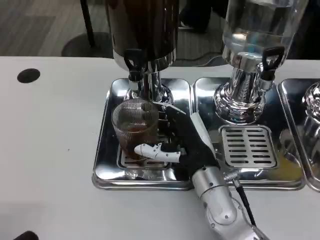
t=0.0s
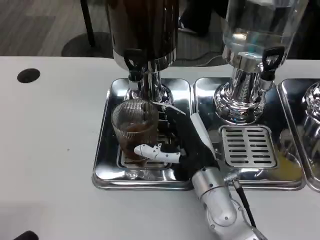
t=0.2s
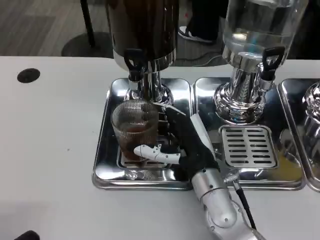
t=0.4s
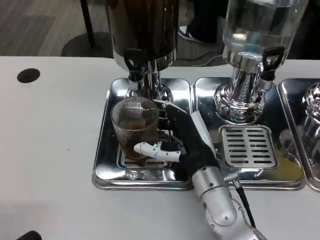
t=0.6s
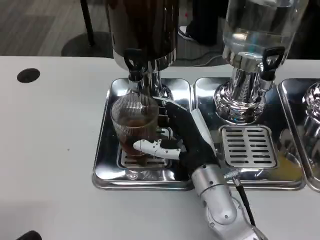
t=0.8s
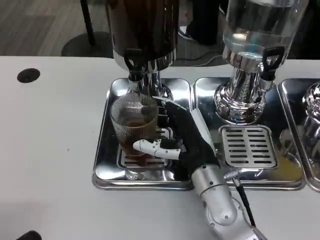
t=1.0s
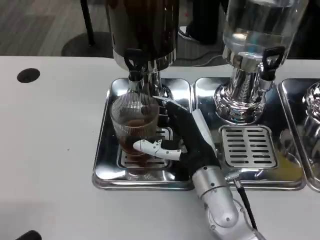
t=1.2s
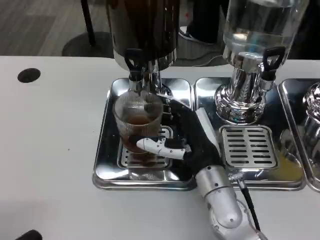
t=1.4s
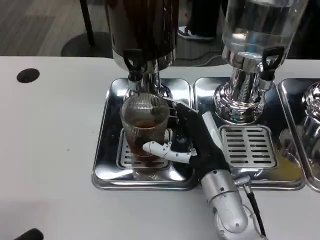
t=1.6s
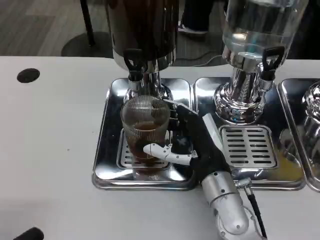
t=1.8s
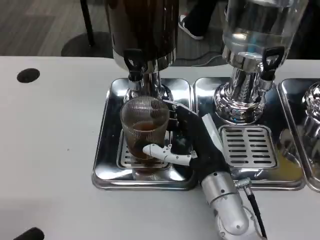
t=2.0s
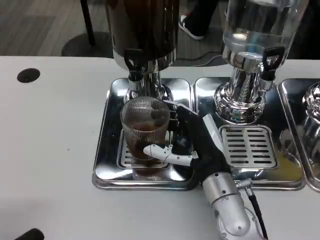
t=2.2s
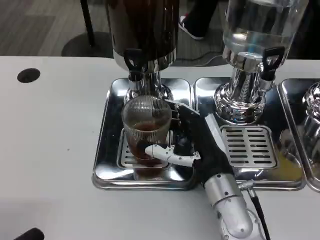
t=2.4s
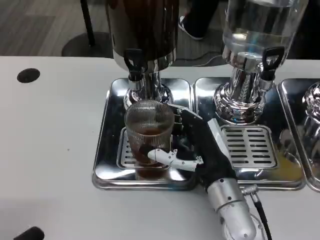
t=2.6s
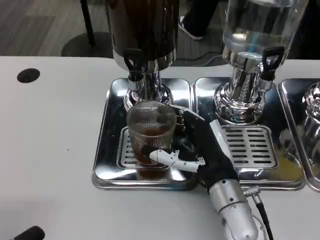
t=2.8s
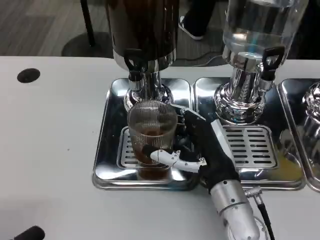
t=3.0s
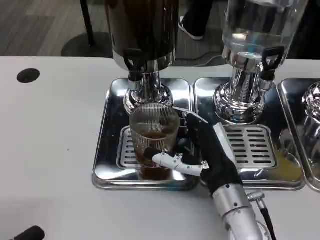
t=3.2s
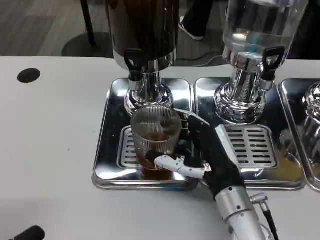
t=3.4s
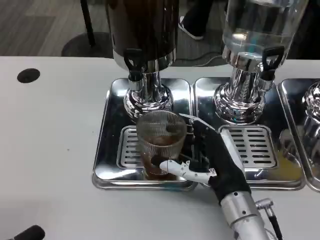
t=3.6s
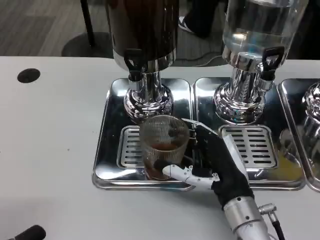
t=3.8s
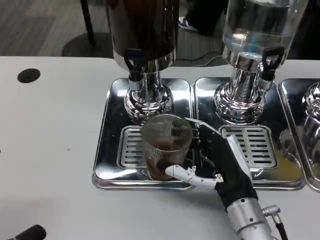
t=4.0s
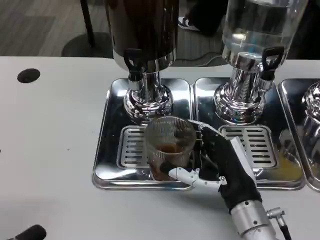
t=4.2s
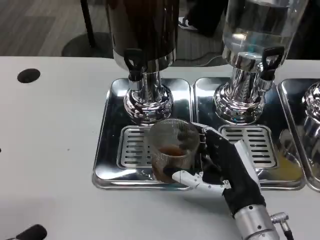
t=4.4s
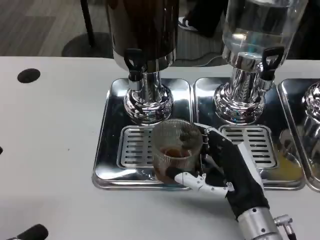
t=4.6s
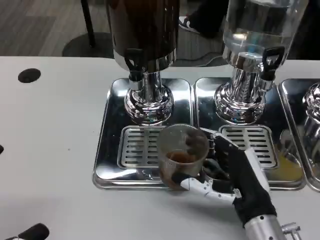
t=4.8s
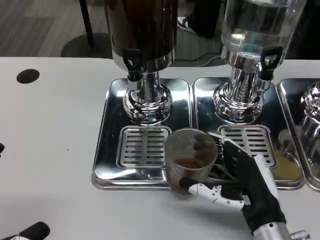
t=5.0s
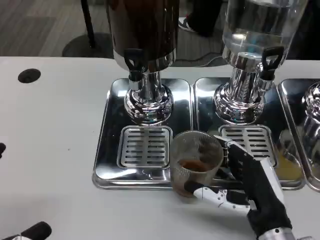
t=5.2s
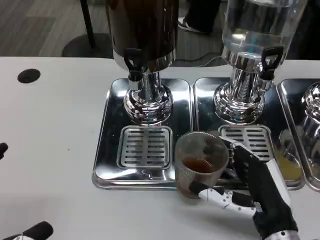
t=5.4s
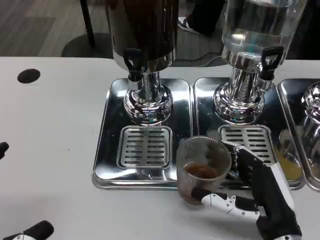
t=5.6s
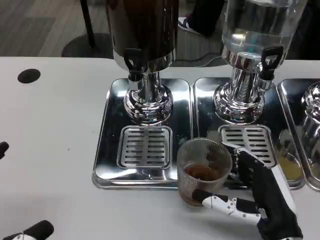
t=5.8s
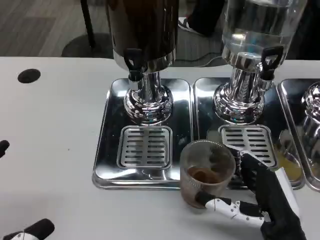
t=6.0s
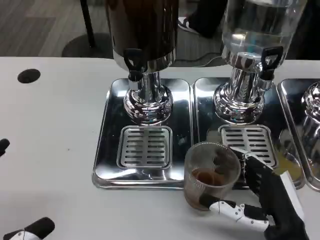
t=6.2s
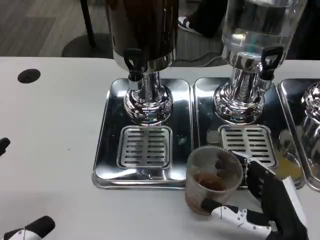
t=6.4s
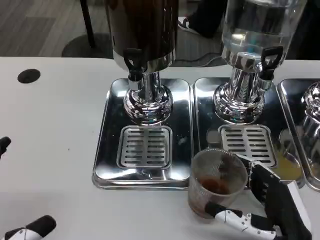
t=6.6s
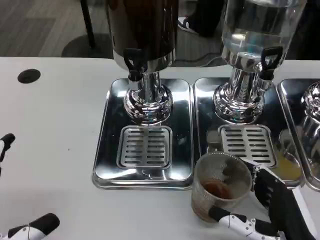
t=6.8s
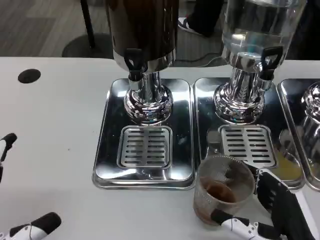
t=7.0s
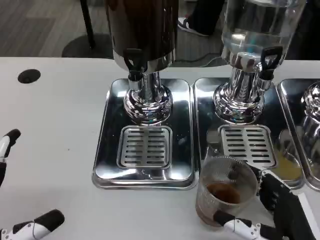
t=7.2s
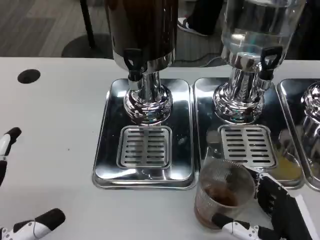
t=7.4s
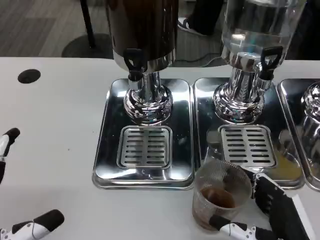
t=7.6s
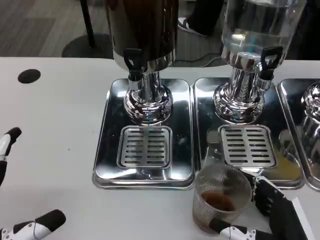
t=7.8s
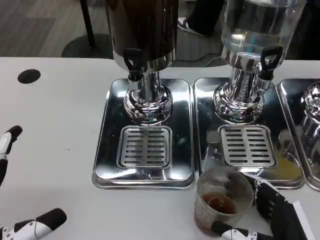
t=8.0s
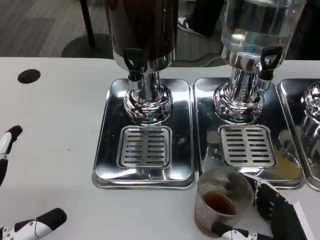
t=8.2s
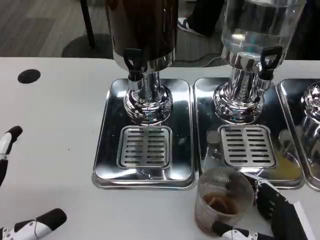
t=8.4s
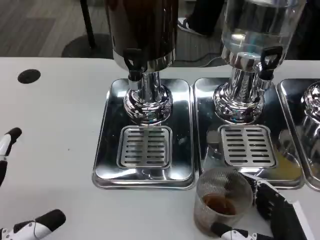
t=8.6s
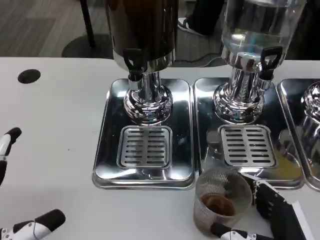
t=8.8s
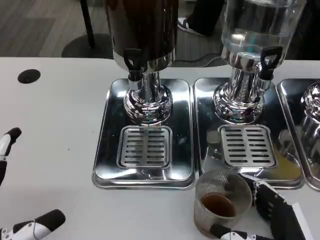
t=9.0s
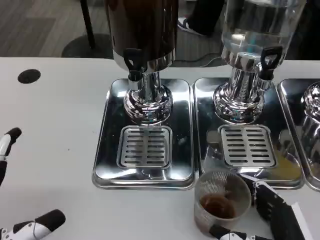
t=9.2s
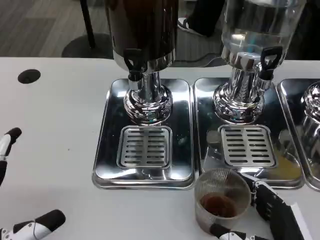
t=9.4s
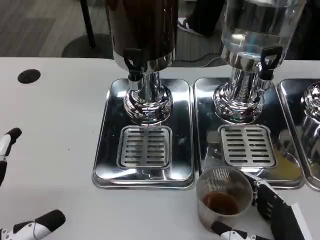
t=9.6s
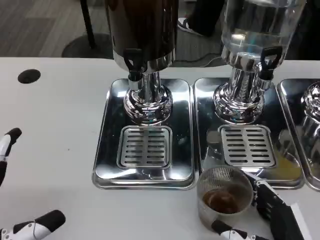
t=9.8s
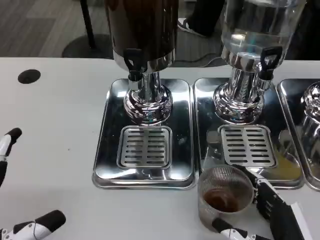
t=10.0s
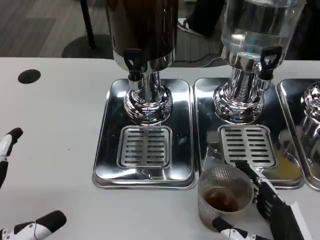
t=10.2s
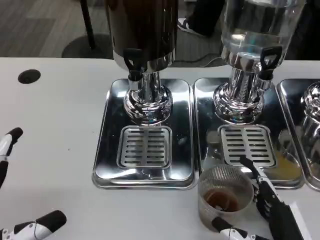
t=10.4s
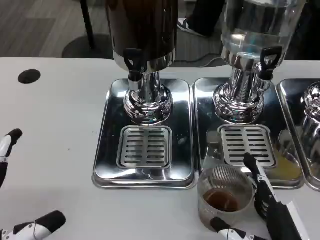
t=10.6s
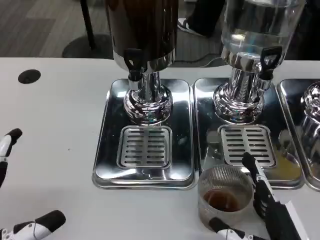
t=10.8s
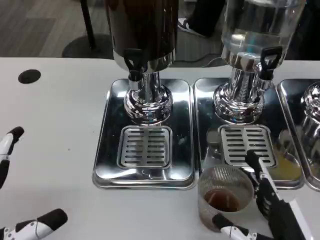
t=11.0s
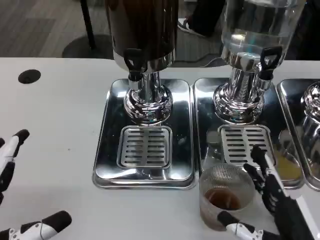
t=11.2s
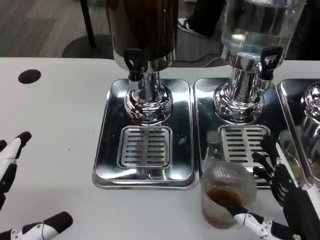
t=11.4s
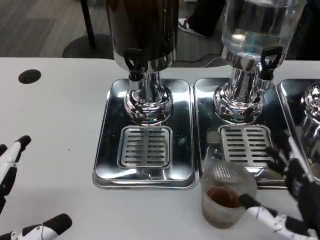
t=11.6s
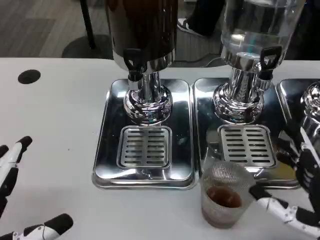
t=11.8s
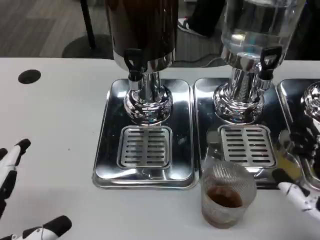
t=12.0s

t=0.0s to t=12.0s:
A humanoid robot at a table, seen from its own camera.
Task of the whole recording: Grasp the cup under the faucet to collect the drink, then remove the cup.
t=0.0s to t=3.0s: The hands make only small movements.
t=3.0s to t=4.4s: The hands move only a little.
t=4.4s to t=6.0s: The right hand travels backward by some 5 cm.
t=6.0s to t=7.6s: The hands stay close to where they were, moving slightly.
t=7.6s to t=10.4s: Both hands stay about where they are.
t=10.4s to t=12.0s: The right hand shifts about 10 cm to the right and upward.

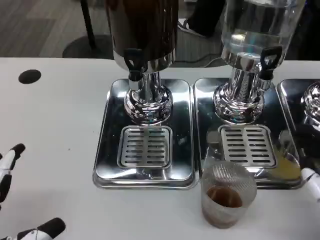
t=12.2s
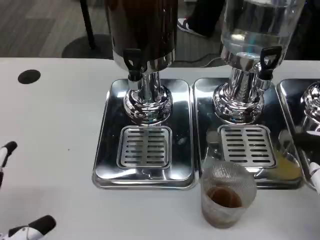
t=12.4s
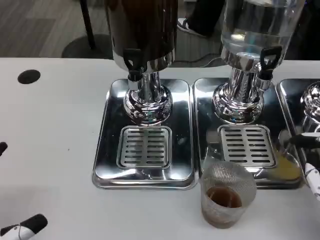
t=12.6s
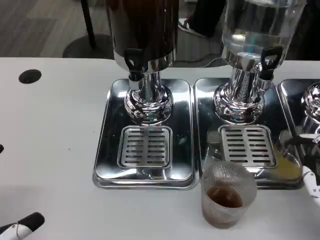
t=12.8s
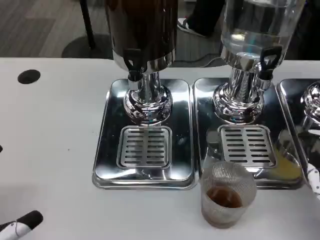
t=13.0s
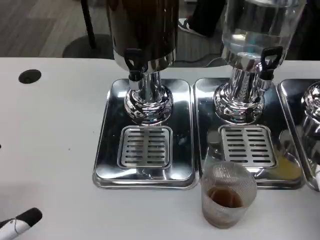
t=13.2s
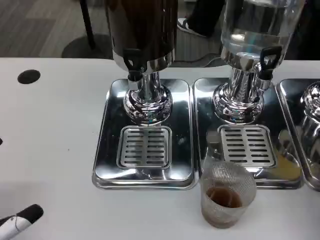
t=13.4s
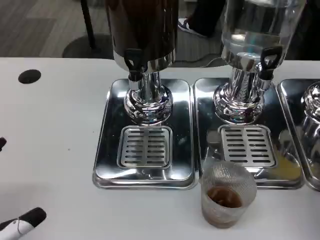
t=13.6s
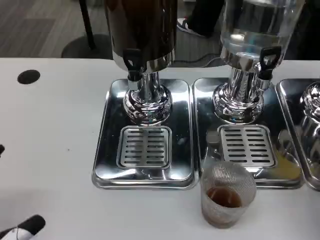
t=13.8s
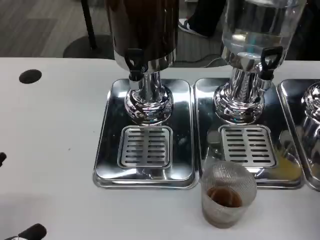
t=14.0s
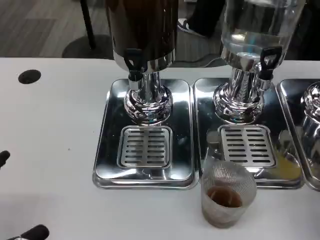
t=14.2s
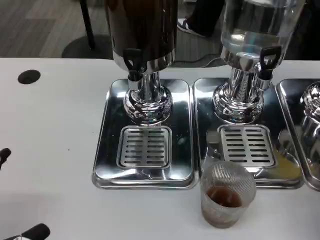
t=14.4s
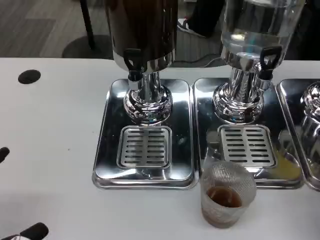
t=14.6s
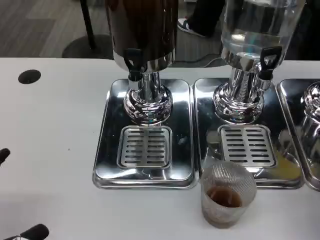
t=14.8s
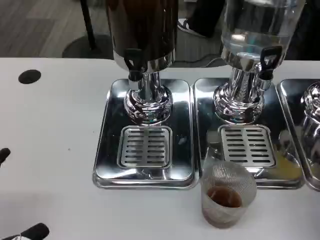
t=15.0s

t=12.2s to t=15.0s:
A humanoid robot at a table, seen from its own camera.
Task of the whole recording: Grasp the cup under the faucet to collect the drink, then remove the cup.
t=13.6s to t=15.0s: There are only small adjustments of the hands.

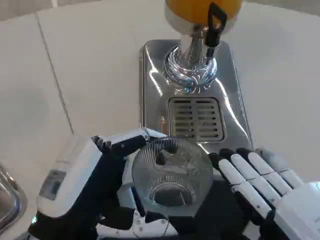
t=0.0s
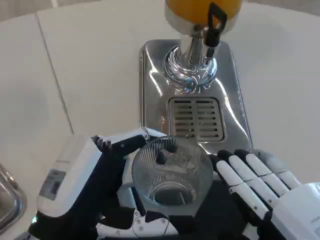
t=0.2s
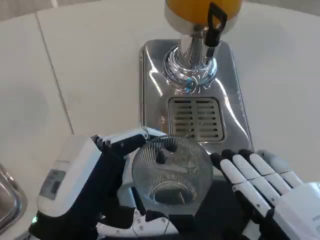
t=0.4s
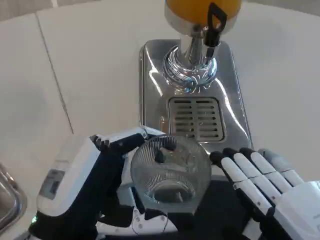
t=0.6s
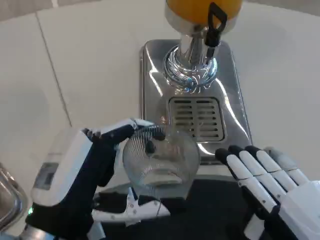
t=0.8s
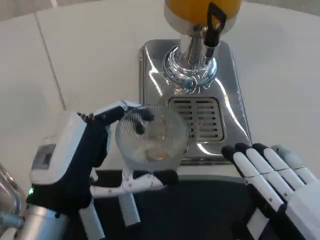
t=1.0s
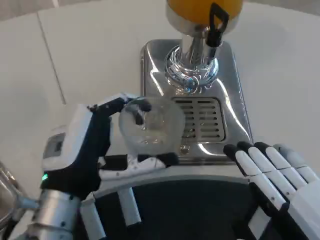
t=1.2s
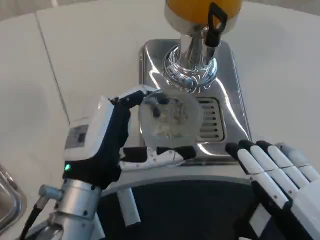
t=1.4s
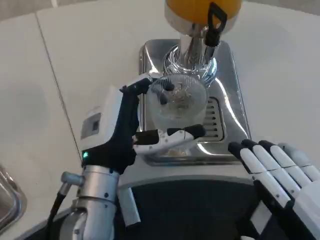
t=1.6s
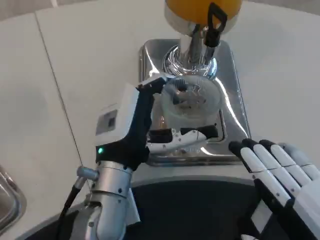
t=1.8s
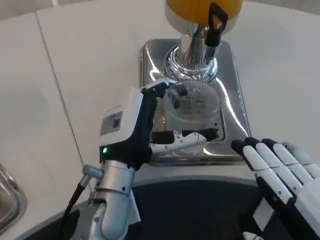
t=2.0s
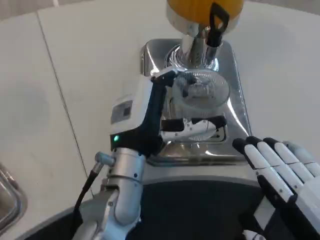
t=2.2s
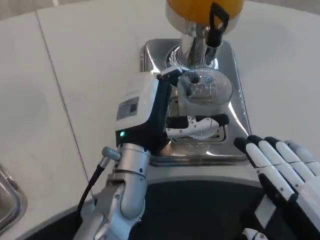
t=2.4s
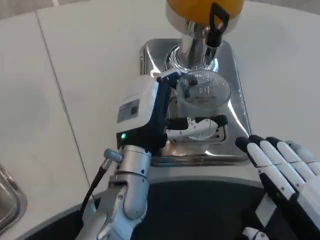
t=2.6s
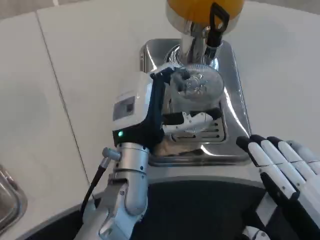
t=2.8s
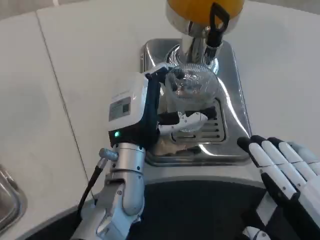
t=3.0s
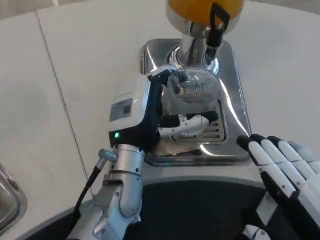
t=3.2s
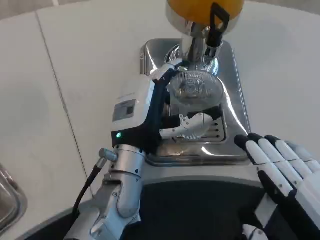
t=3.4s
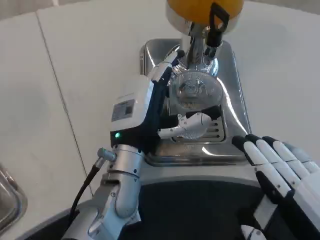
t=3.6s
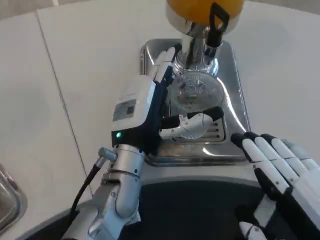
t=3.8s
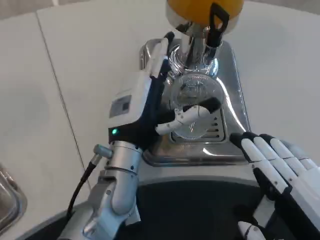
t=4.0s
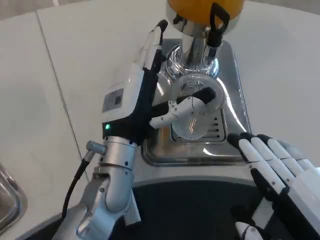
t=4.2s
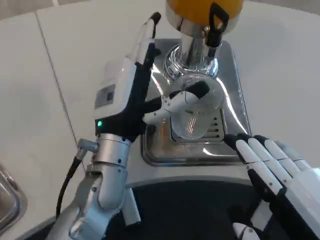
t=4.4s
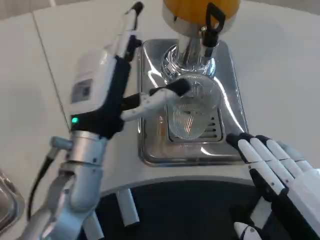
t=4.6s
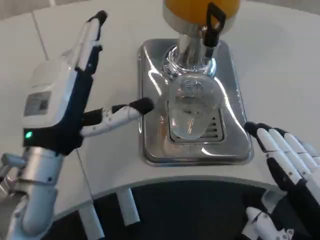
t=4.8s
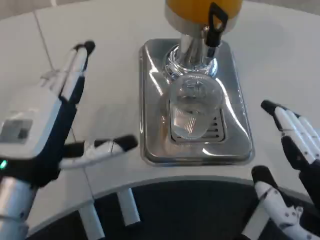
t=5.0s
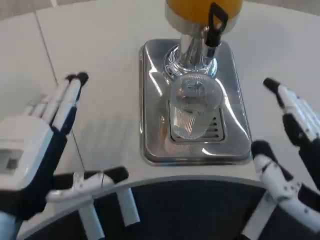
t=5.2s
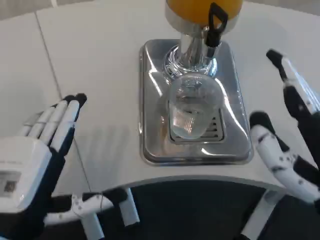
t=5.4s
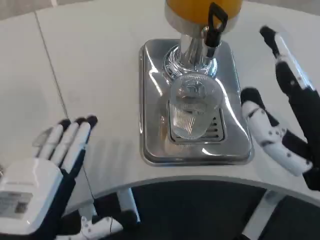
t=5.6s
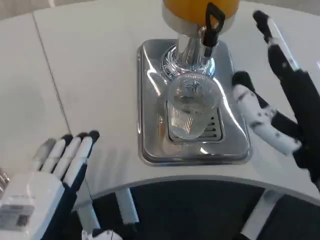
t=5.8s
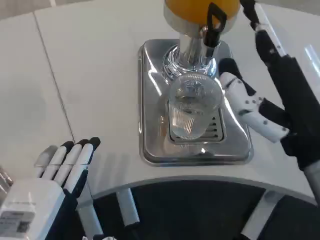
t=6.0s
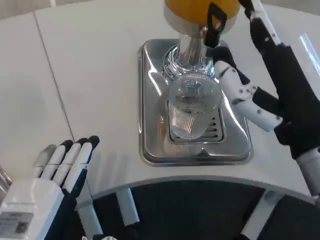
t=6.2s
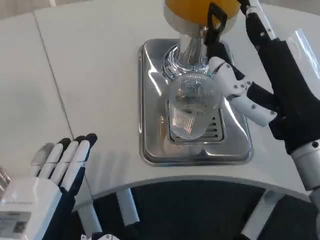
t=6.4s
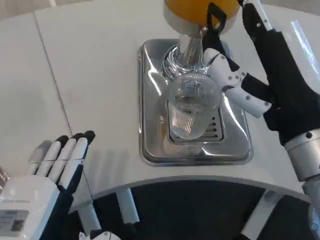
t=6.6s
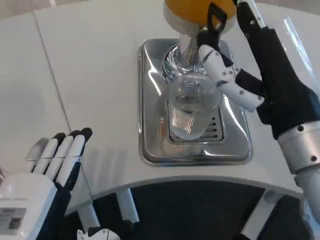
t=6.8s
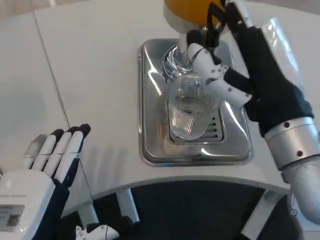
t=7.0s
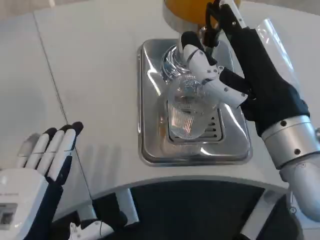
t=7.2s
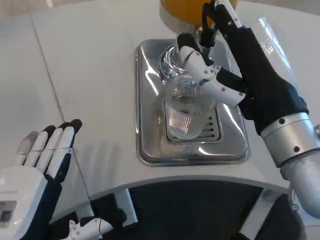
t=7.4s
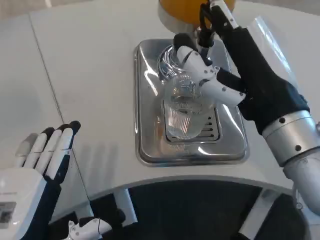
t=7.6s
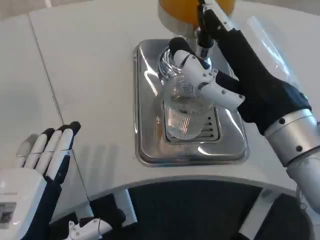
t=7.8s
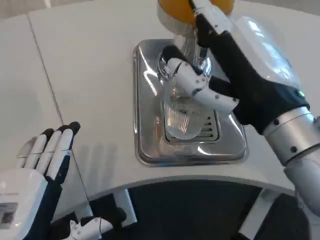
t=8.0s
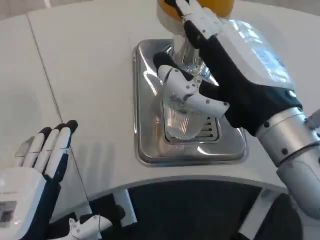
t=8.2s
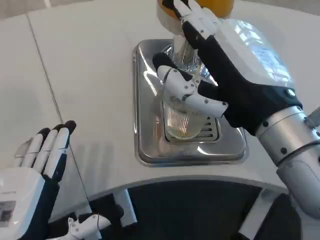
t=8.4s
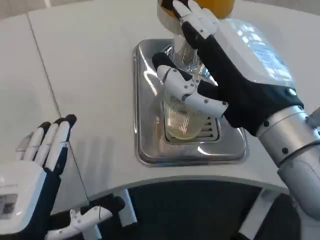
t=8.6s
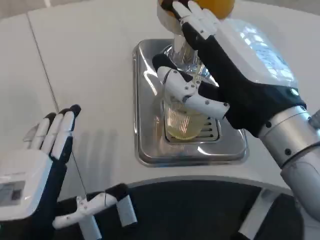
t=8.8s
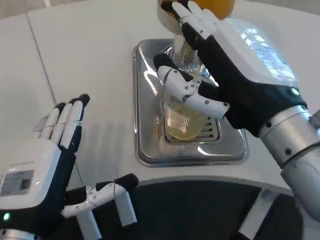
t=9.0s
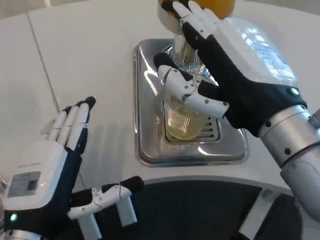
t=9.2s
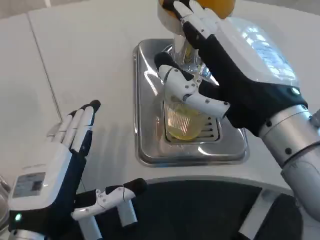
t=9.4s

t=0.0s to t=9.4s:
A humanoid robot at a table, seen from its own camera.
Task of the whole recording: Grasp the cup under the faucet to collect the drink, then remove the cup.
t=0.0s to t=1.6s: The left hand shifts some 10 cm forward and to the right.
t=1.6s to t=3.2s: The left hand travels forward by approximately 5 cm.
t=3.2s to t=4.8s: The left hand moves to the left and backward, about 10 cm.
t=4.8s to t=6.2s: The left hand goes about 15 cm backward. Meanwhile the right hand goes approximately 10 cm forward and upward.
t=7.8s to t=9.4s: The left hand moves about 5 cm.
